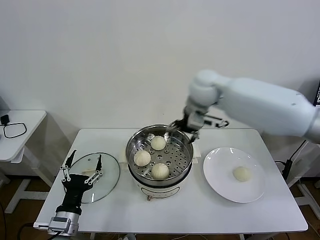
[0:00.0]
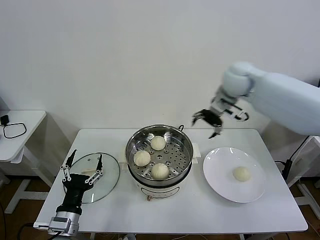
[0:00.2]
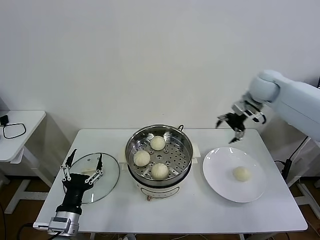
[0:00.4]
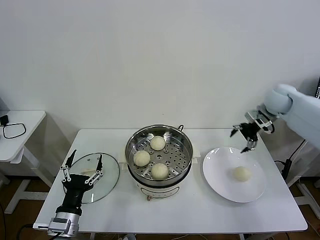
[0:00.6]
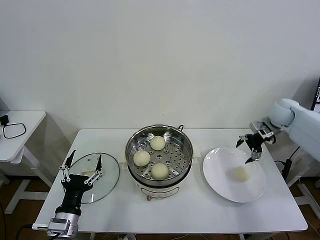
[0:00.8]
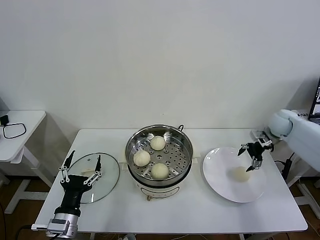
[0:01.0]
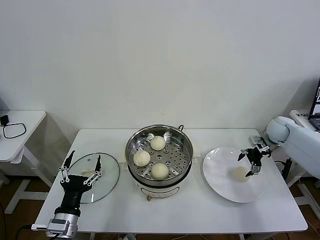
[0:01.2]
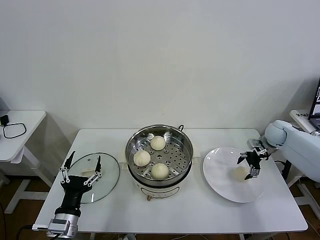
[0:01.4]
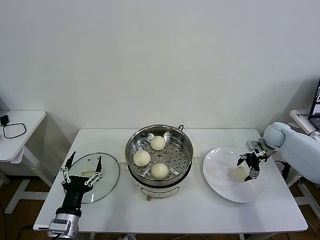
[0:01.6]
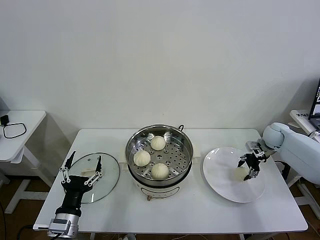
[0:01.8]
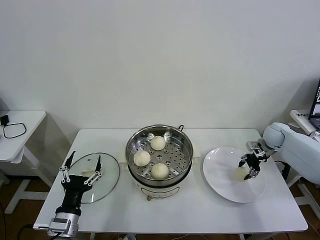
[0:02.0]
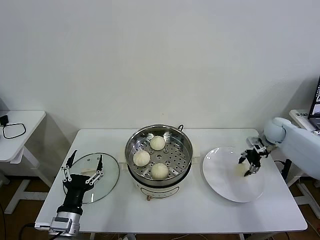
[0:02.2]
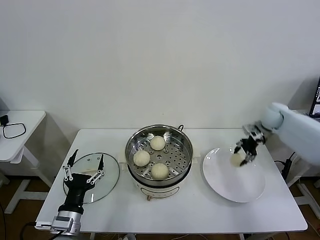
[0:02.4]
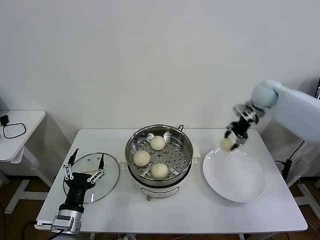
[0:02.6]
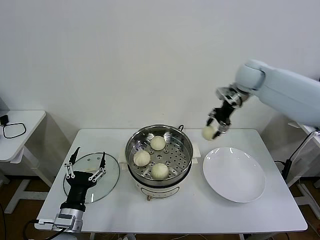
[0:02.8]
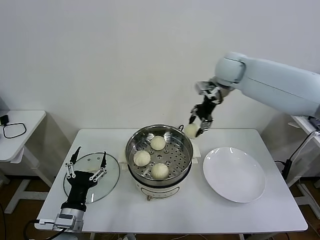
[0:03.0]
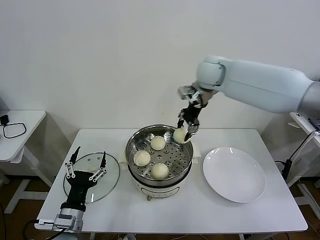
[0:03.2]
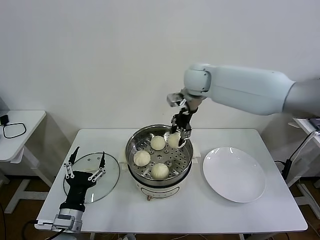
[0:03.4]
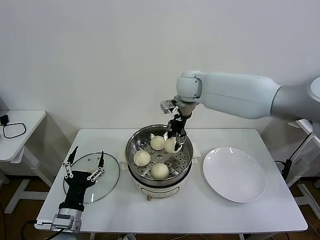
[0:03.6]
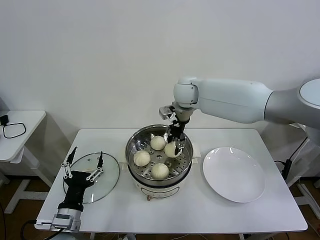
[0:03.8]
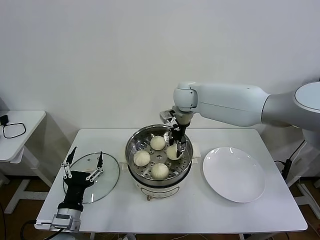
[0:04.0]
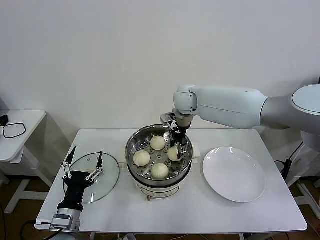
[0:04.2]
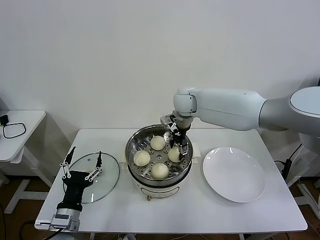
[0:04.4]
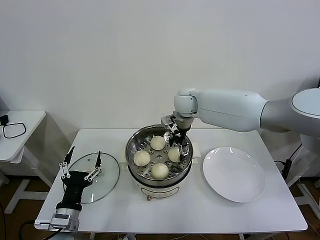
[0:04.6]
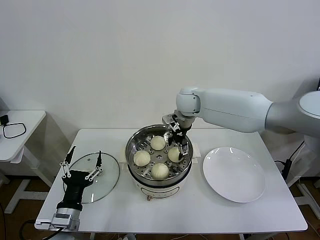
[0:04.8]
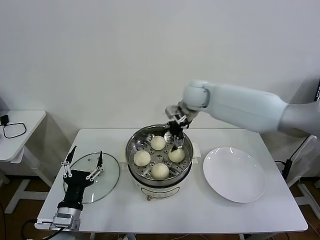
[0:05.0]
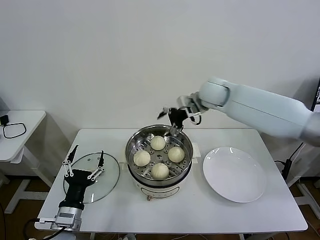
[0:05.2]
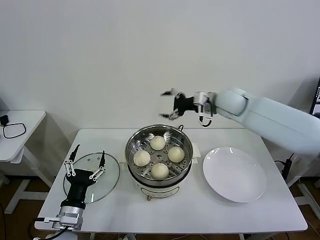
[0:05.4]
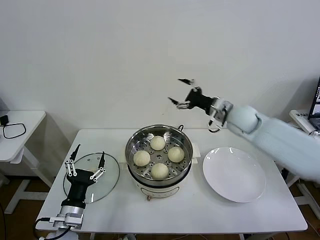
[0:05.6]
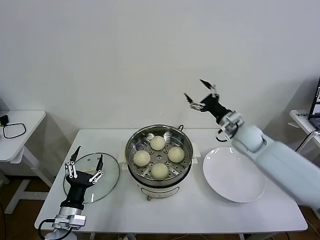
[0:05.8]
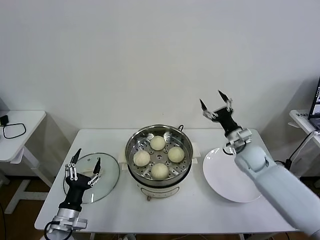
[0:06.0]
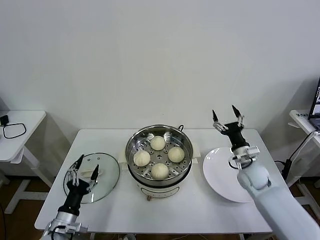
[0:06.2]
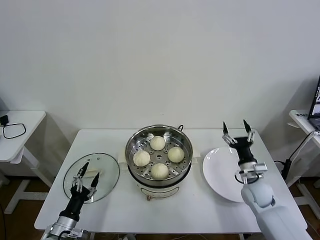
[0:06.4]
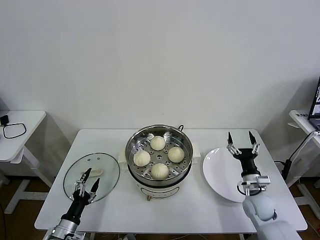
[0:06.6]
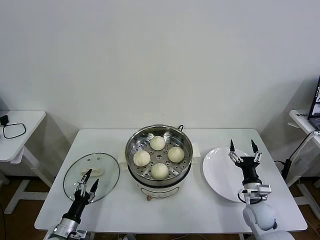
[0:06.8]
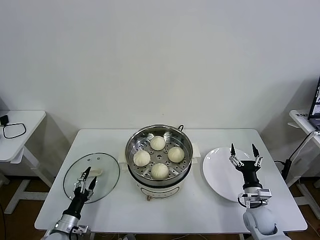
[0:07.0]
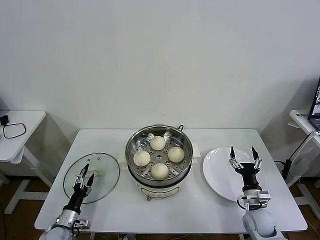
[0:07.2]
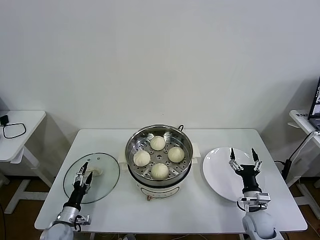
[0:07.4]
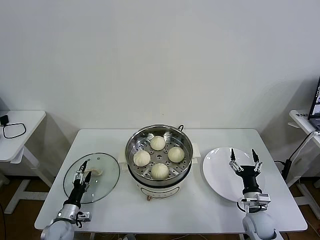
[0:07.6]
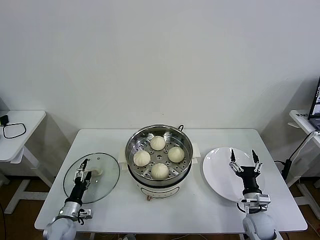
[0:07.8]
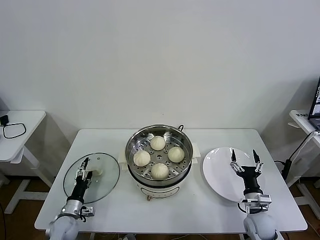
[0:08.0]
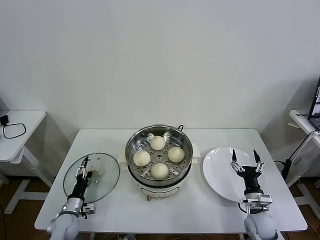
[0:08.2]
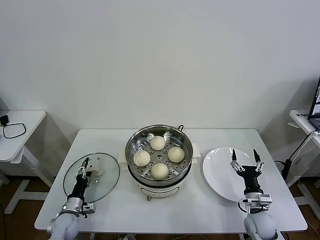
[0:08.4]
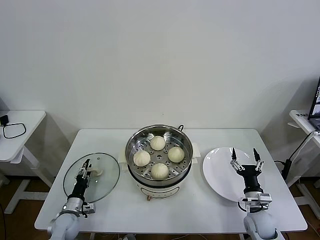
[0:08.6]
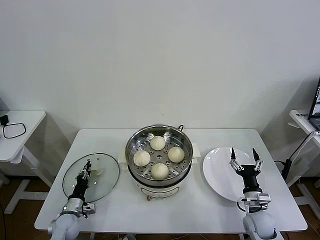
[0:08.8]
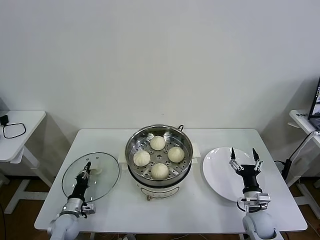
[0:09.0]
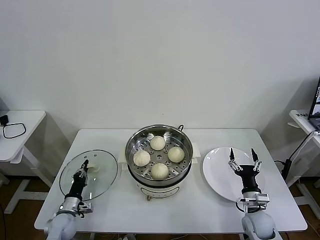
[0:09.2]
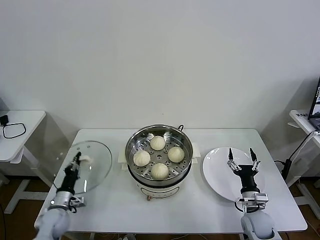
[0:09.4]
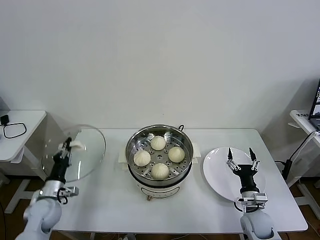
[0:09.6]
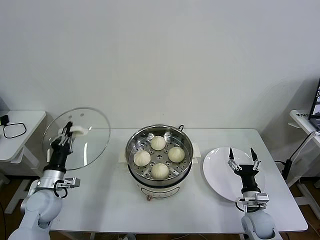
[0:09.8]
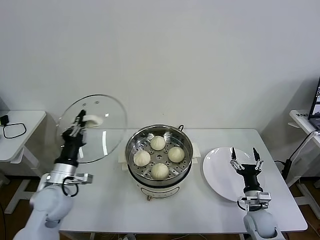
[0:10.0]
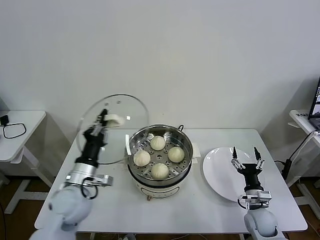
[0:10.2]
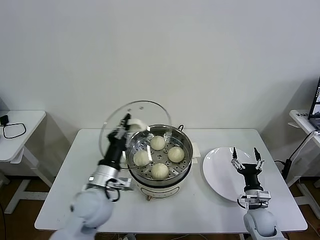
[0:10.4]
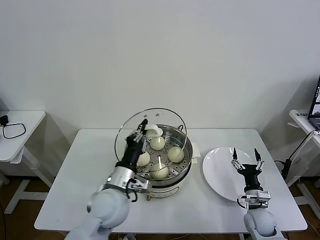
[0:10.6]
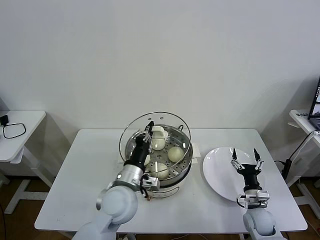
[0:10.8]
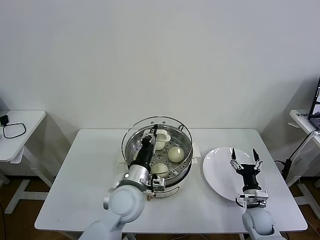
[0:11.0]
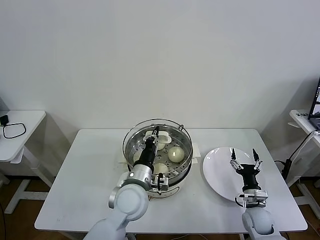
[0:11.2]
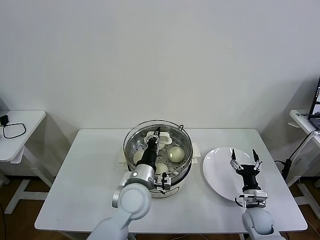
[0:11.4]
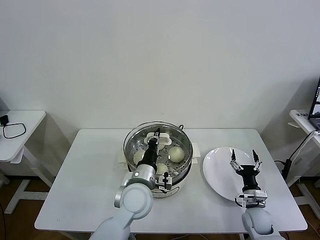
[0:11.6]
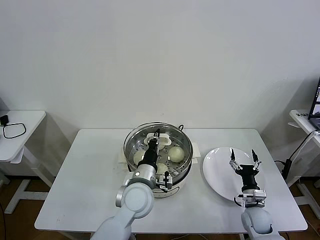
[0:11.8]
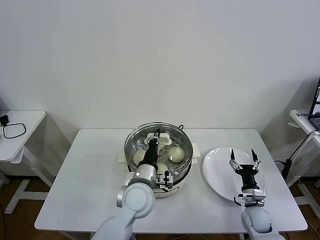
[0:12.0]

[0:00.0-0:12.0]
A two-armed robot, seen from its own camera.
Task of the whole recording: take steamed baozi put them in steamer then cover it.
Step, 0:00.0 to 0:02.0: Grasp the baozi in the plate with right gripper.
Step, 0:02.2 to 0:05.0: Place the baozi on the steamer with right gripper.
Step, 0:05.2 to 0:09.0: Grasp the pot lid with left gripper.
0:00.0 to 0:01.6: The right gripper goes roughly 40 cm to the right and downward.
0:01.6 to 0:03.0: The right gripper is displaced upward and to the left by roughly 35 cm, and closes up.
0:03.0 to 0:04.4: The right gripper travels to the left and downward by about 15 cm, and opens up.
0:04.4 to 0:06.0: The left gripper moves roughly 5 cm. Meanwhile the right gripper is displaced to the right, downward and backward by roughly 30 cm, and opens its fingers.
0:06.0 to 0:07.6: The right gripper travels backward and downward by roughly 25 cm. Meanwhile the left gripper travels downward, to the left and forward by approximately 15 cm.
0:07.6 to 0:09.0: The left gripper closes.
0:09.0 to 0:10.4: The left gripper moves upward and to the right, about 30 cm.
0:10.4 to 0:12.0: The left gripper travels to the right by about 15 cm.

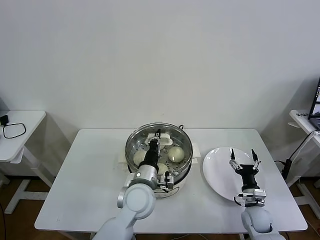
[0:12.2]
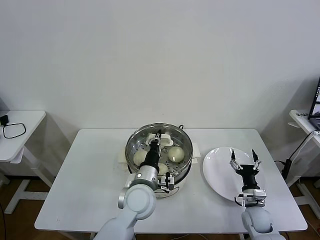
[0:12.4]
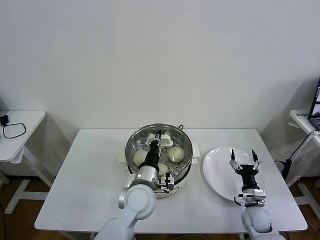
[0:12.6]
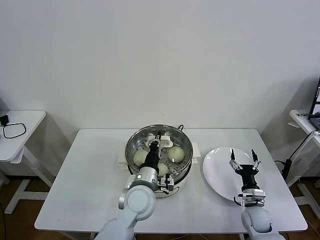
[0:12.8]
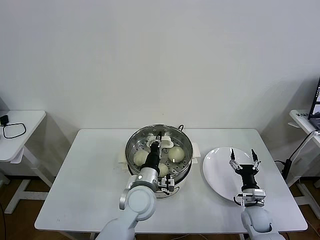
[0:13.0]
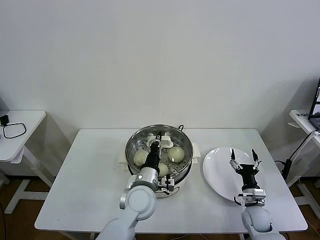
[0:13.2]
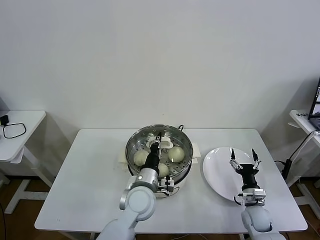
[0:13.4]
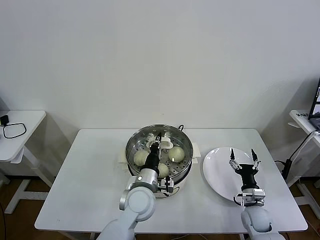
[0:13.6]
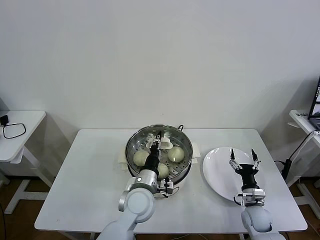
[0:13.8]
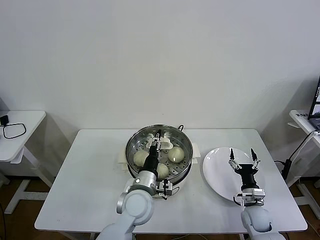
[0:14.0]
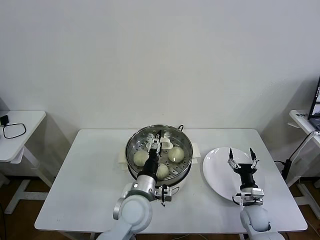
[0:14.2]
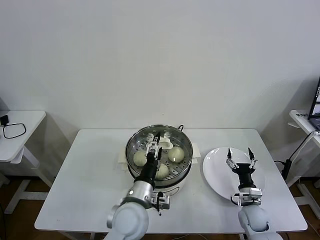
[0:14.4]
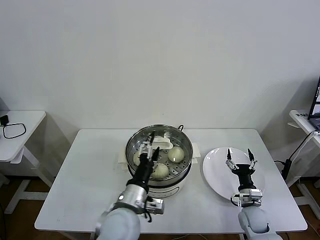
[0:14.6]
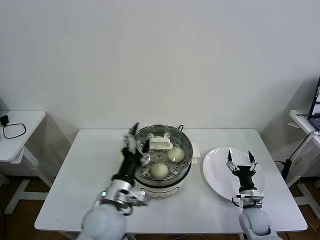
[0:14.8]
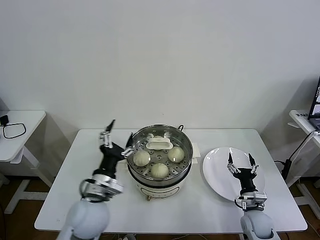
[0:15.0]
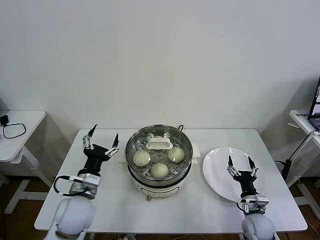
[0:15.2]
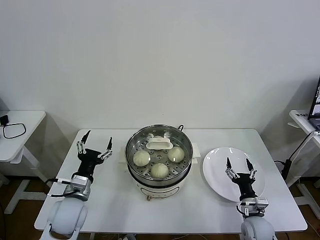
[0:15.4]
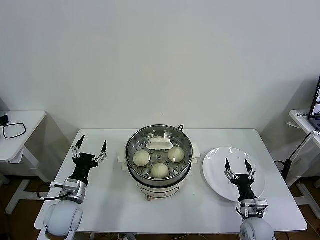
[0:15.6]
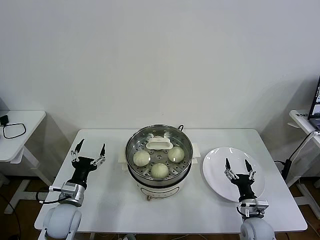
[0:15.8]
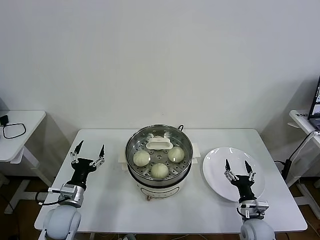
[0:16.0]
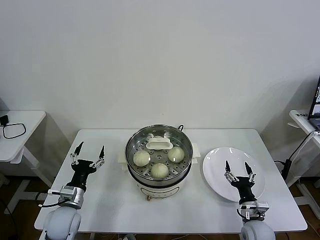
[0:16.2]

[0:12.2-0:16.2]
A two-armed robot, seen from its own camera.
Task of the whole recording: take steamed baozi put them in steamer then cover it.
Step, 0:12.2 to 0:14.2: Place the pot lid on the steamer with left gripper.
0:12.2 to 0:13.6: There are only small adjustments of the grippers.
0:13.6 to 0:14.8: The left gripper shifts roughly 10 cm backward, upward and to the left, and opens its fingers.
0:14.8 to 0:16.2: The left gripper moves to the left and downward, roughly 20 cm.
